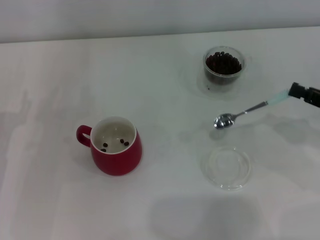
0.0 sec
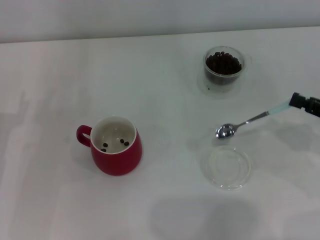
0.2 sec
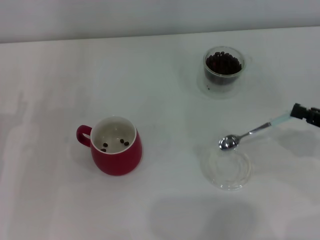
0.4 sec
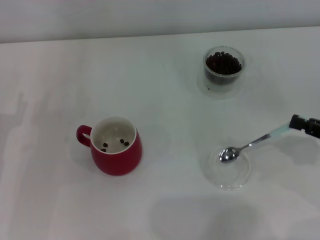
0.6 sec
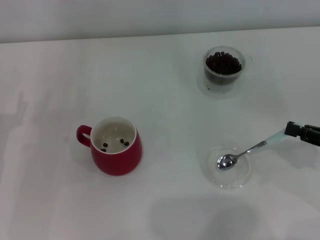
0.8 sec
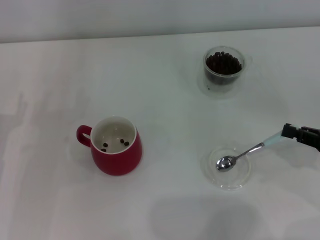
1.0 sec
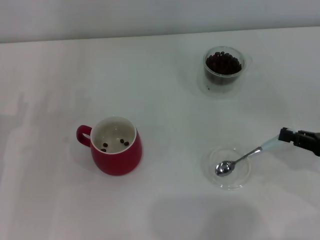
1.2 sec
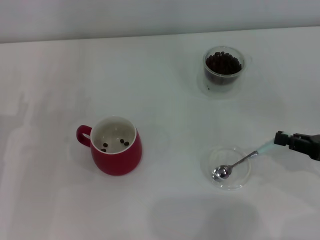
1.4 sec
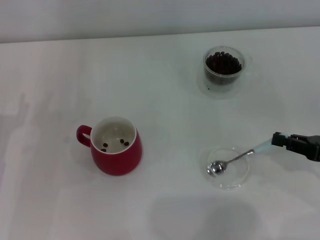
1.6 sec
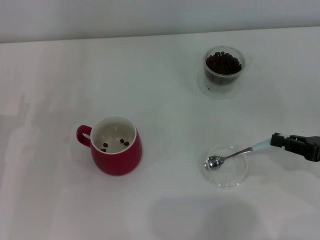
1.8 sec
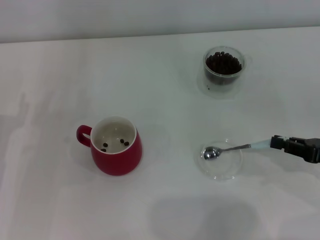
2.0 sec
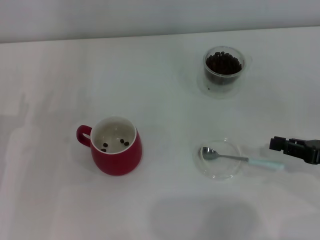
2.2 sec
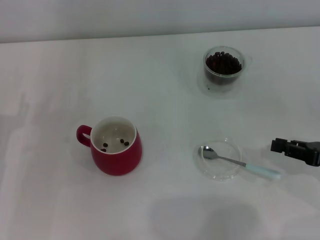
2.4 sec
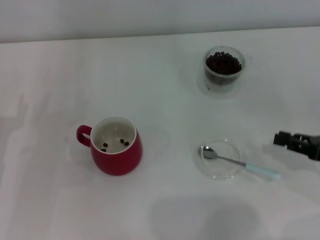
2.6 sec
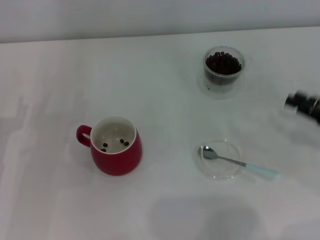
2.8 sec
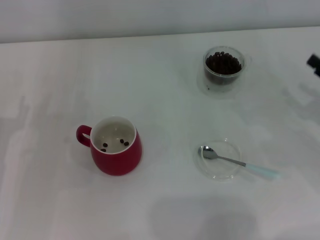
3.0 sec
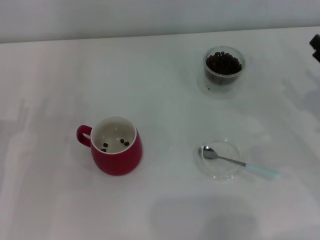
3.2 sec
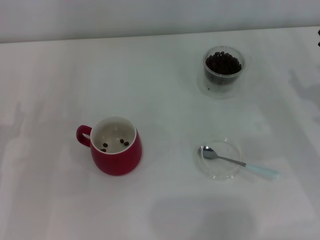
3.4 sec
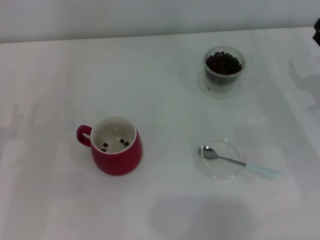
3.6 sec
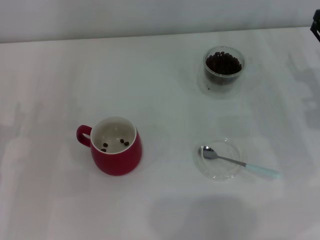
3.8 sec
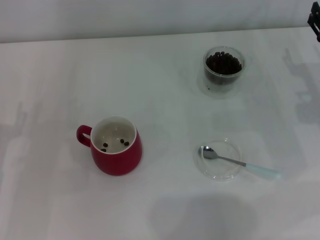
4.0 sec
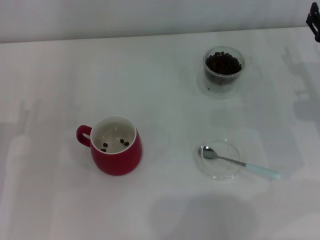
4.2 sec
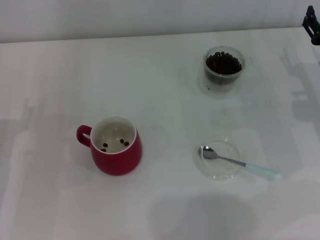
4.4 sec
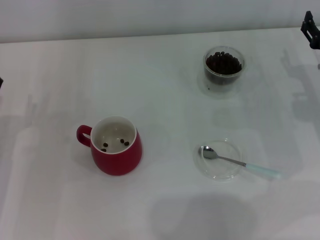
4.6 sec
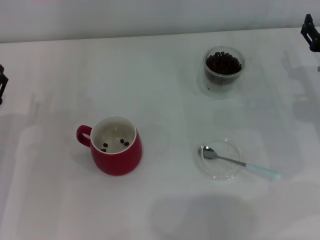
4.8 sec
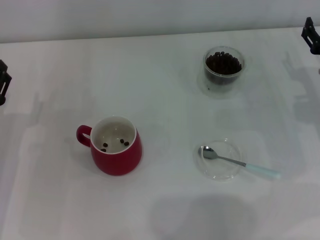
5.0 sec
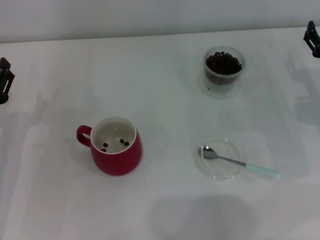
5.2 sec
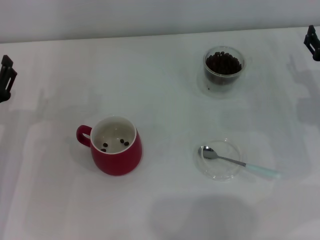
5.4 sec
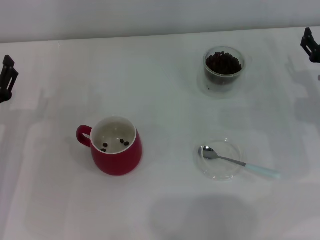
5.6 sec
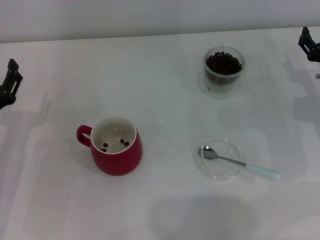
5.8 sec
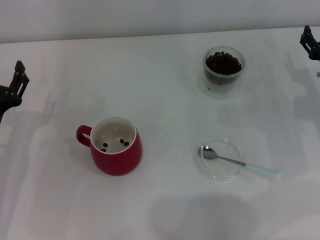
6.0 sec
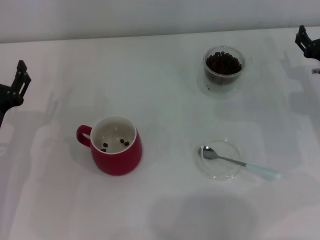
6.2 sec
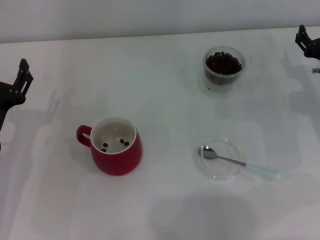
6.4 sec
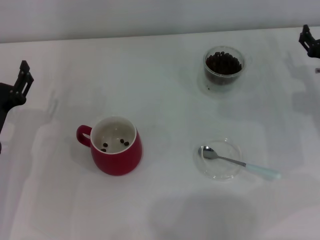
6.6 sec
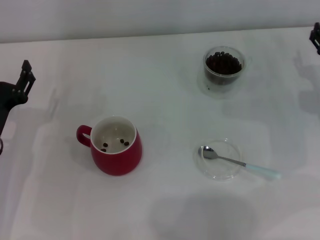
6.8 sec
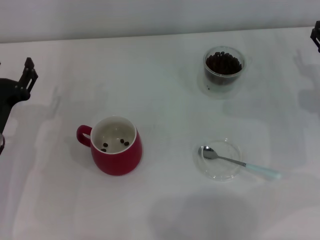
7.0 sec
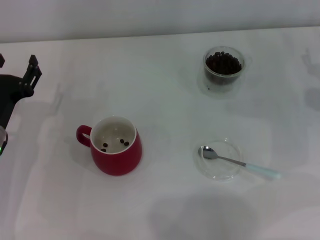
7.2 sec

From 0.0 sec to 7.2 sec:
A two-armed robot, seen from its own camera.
Task of the whole recording: Use a blue spoon to take out the coffee beans from the glass and pour them into the red cup.
Step, from 0.0 sec to 2.4 sec: Place the spoon back in its original place with the right gripper.
From 0.0 sec to 2.8 sec: The grippers make only small movements.
From 2.8 sec to 4.4 sec: The right gripper goes approximately 10 cm forward and to the left, and opens its fingers.
From 4.4 sec to 7.2 sec: The grippers make only small movements.
